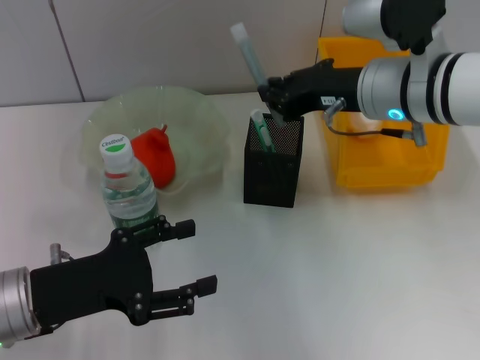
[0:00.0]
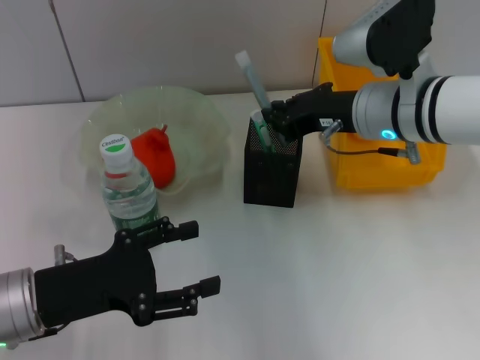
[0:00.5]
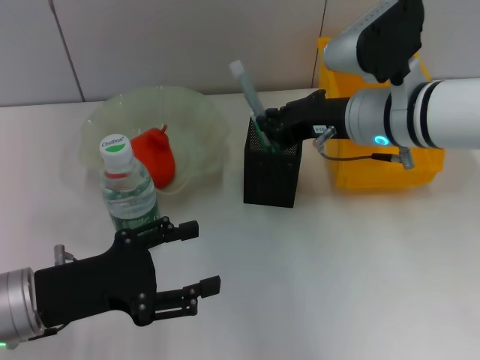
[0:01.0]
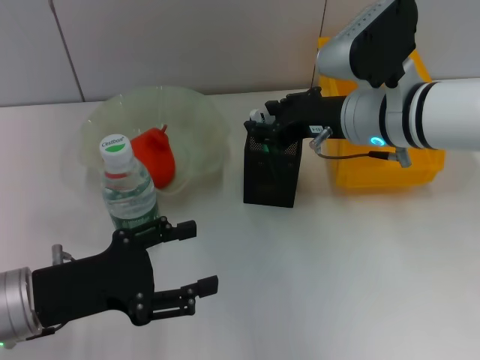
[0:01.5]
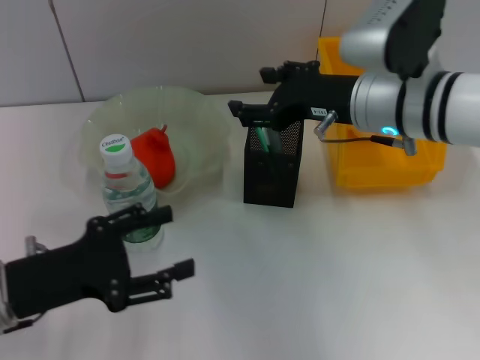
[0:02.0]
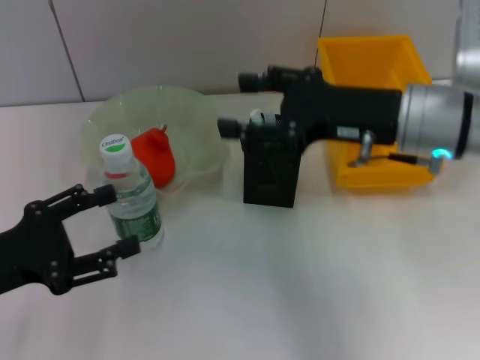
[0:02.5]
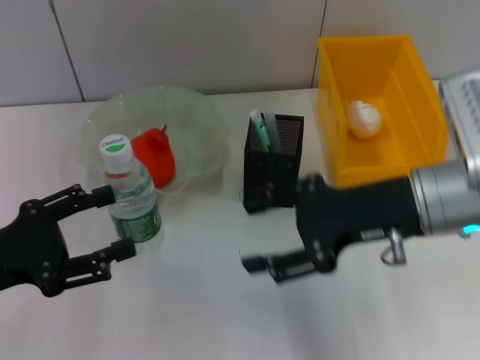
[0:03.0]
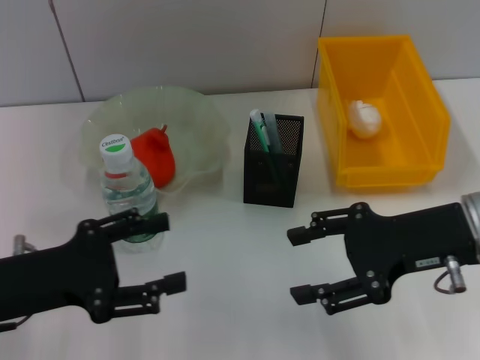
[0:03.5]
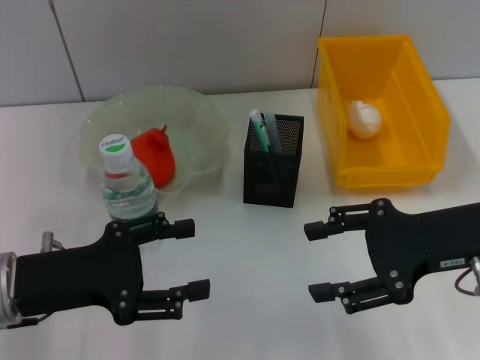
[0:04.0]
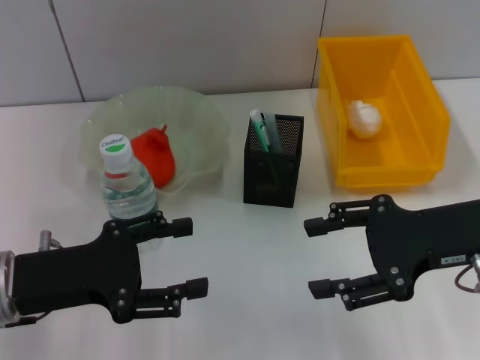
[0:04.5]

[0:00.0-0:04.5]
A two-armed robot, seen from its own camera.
0:00.0 to 0:02.0: The right gripper opens its fingers.
0:02.0 to 0:04.5: The right gripper shifts some 15 cm backward and to the right.

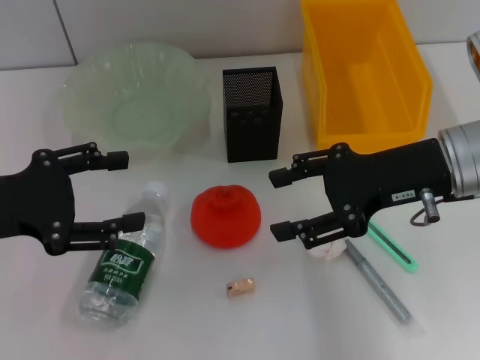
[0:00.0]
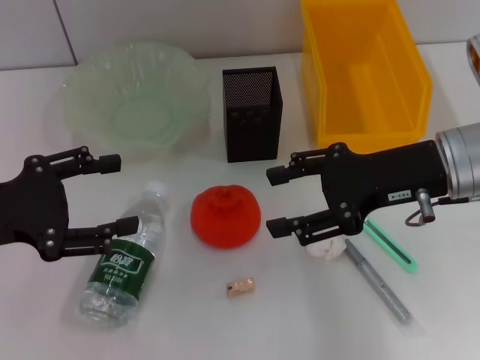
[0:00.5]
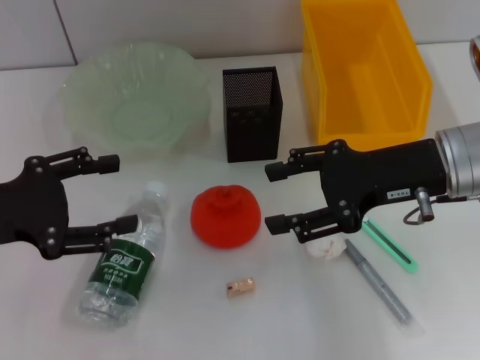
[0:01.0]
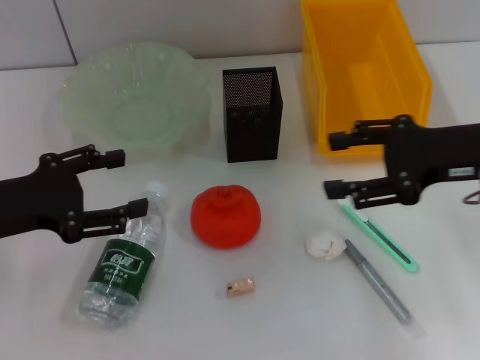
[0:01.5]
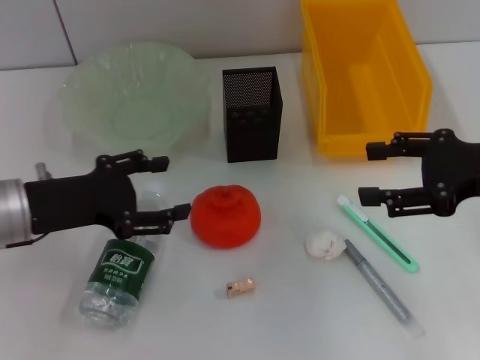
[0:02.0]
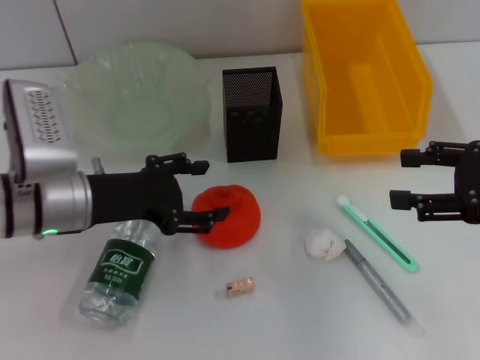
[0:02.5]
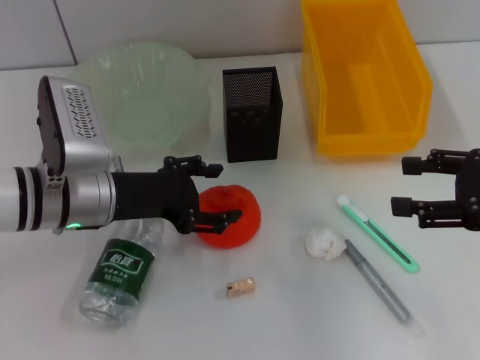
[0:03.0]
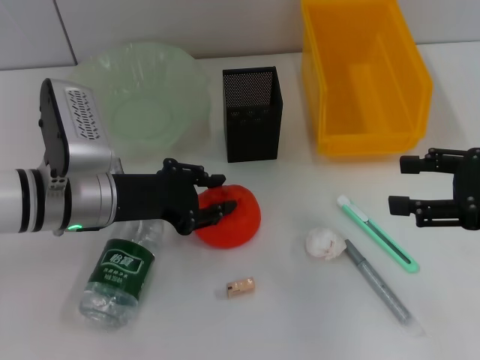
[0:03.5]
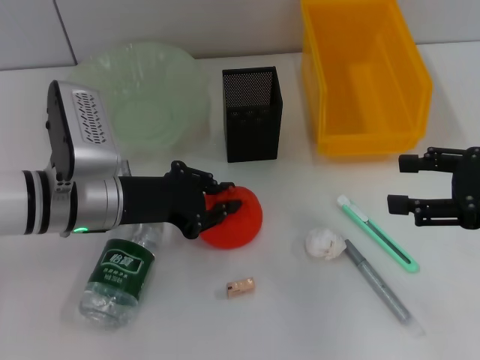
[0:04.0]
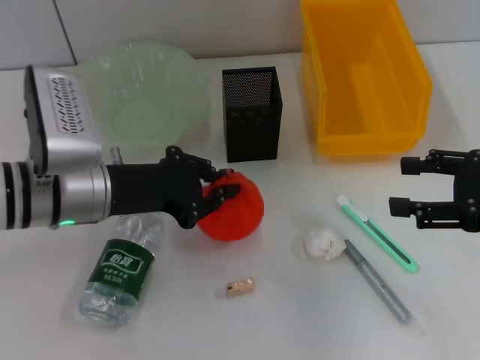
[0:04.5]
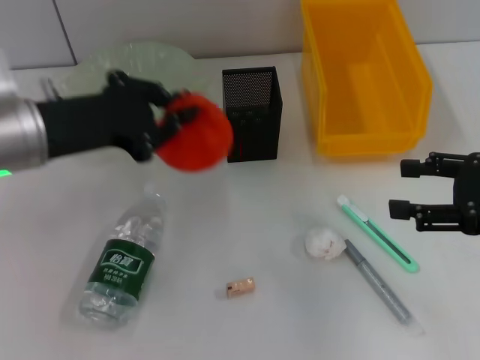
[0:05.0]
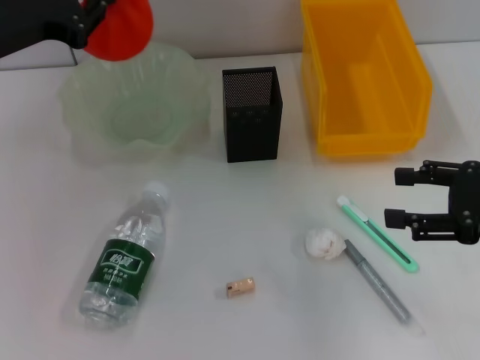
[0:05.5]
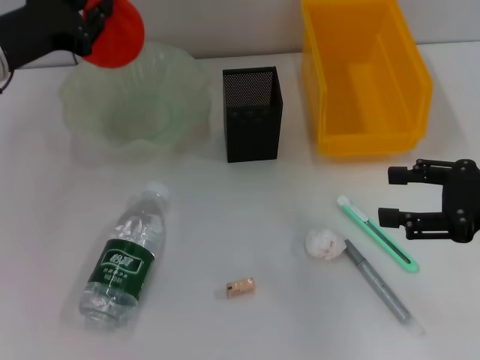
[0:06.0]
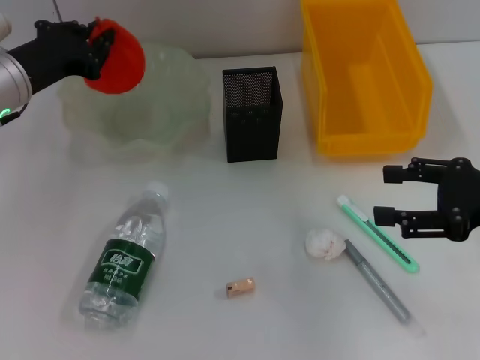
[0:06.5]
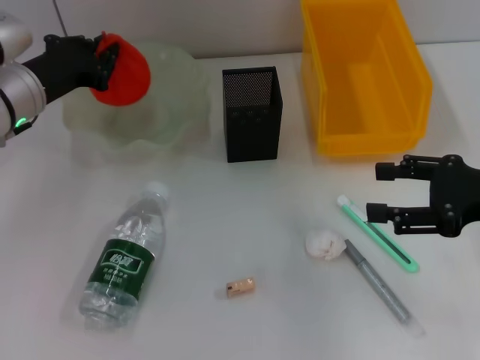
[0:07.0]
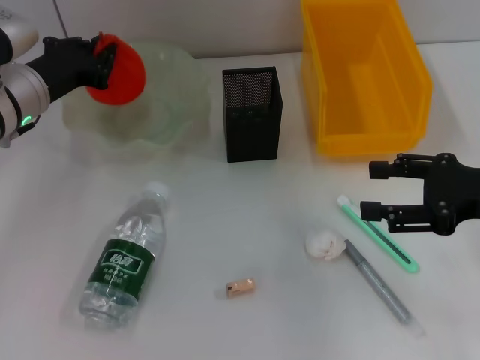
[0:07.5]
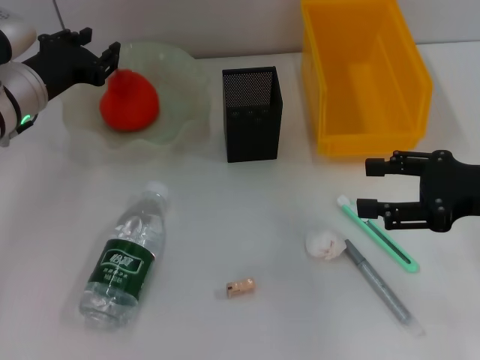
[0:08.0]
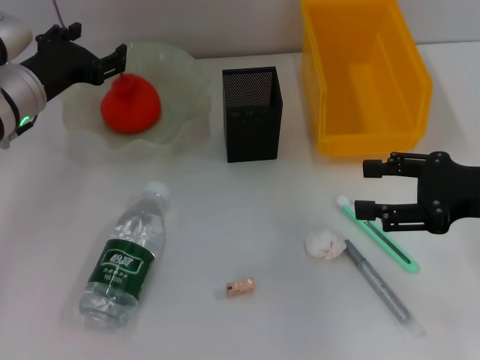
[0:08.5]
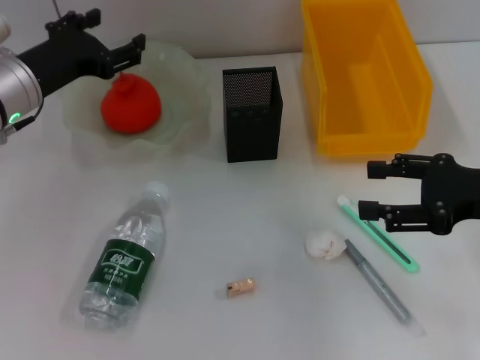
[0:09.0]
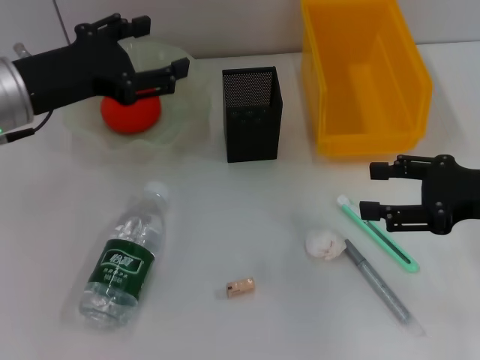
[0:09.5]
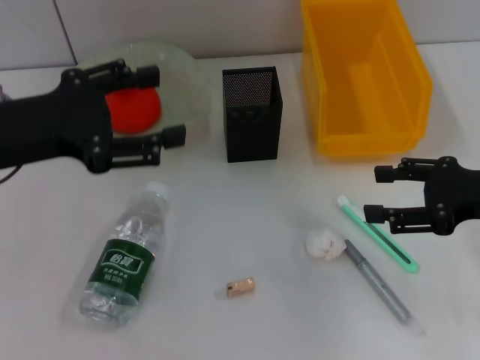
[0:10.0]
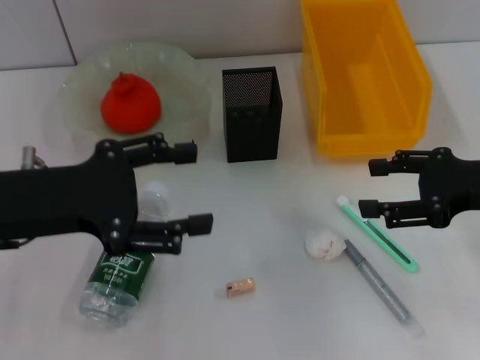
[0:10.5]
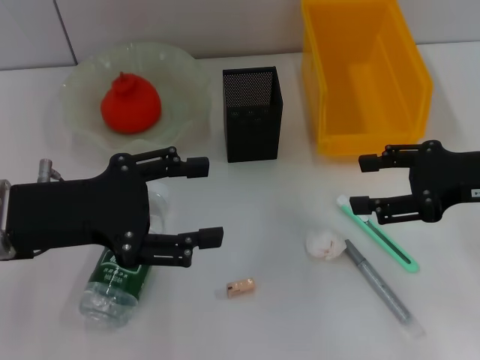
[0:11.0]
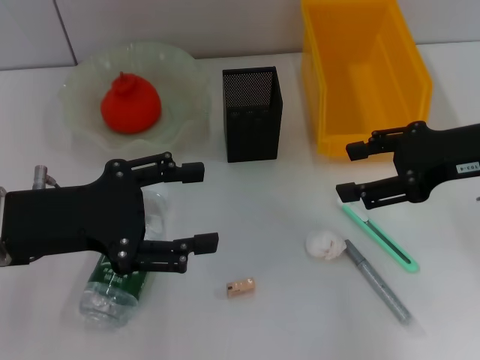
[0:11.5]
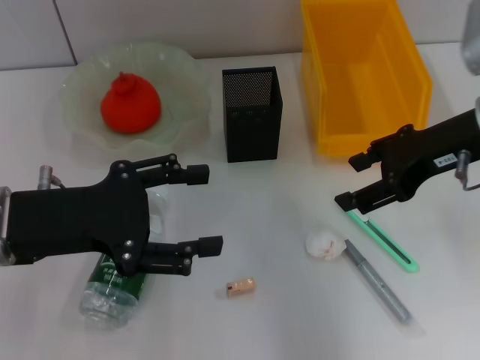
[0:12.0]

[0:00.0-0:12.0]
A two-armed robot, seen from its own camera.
Step, 0:00.0 to 0:04.0: Grab the orange with the left hand.
Step, 0:04.5 to 0:08.0: Place the orange into the fruit bowl with the left hand.
0:00.0 to 0:02.0: The right gripper is displaced to the right by about 10 cm. Meanwhile the left gripper travels downward by some 5 cm.
0:02.0 to 0:04.0: The left gripper shifts some 5 cm to the right, and closes.
0:04.0 to 0:06.0: The left gripper is displaced upward, to the left and forward by roughly 15 cm.
0:06.0 to 0:08.0: The left gripper goes about 5 cm downward.
0:08.0 to 0:10.0: The left gripper shifts roughly 15 cm backward and upward, and opens up.
0:10.0 to 0:12.0: The right gripper shifts approximately 10 cm upward, to the left and forward; the left gripper moves some 5 cm.

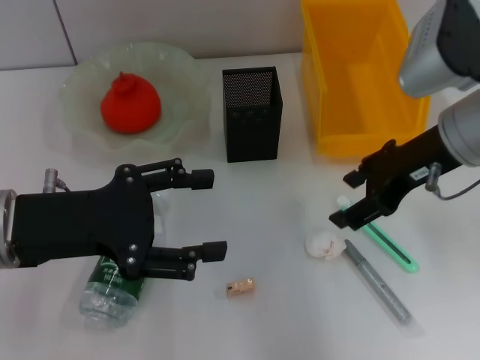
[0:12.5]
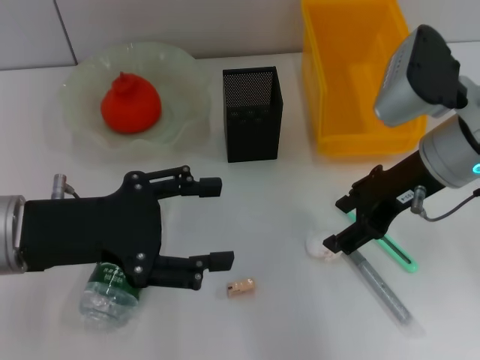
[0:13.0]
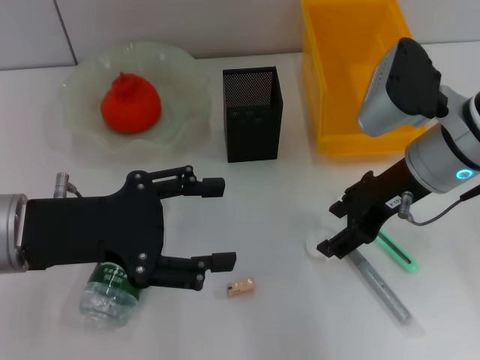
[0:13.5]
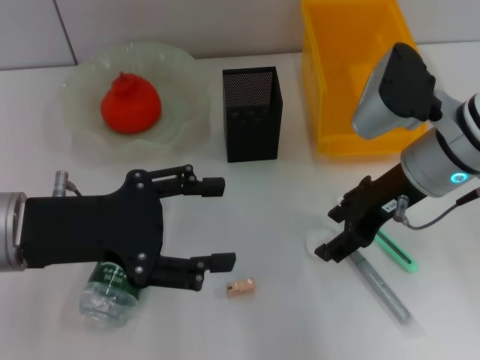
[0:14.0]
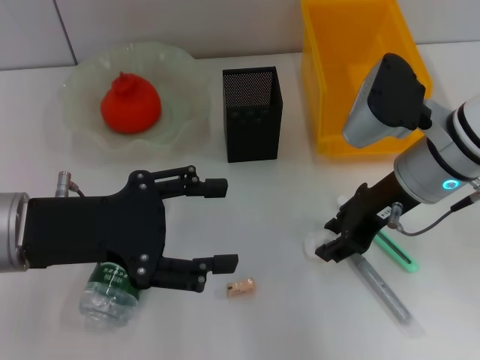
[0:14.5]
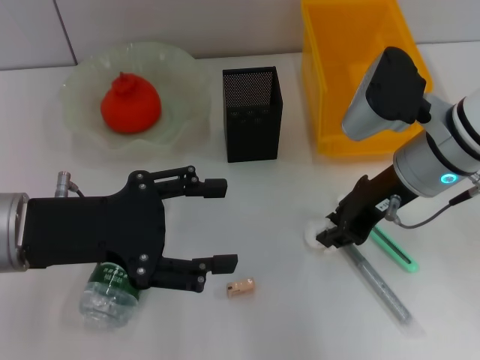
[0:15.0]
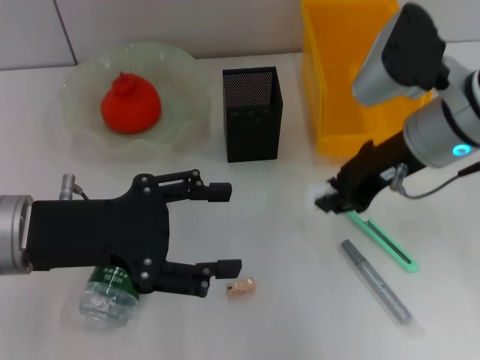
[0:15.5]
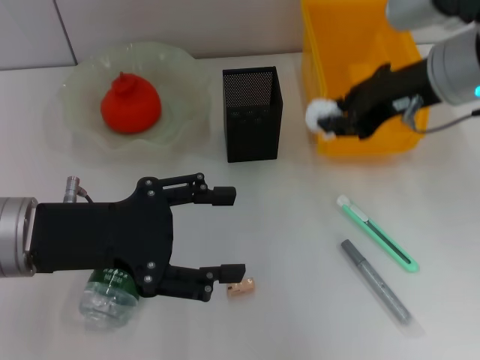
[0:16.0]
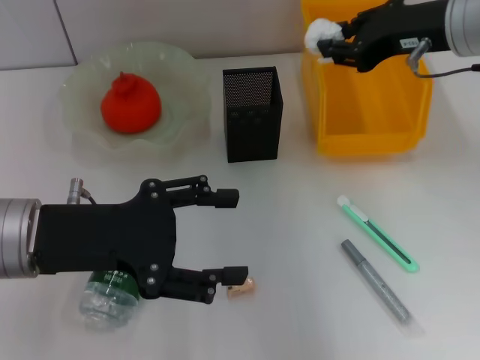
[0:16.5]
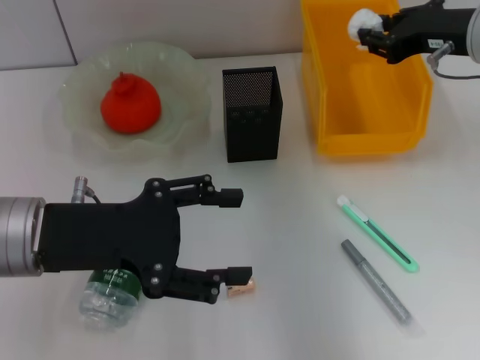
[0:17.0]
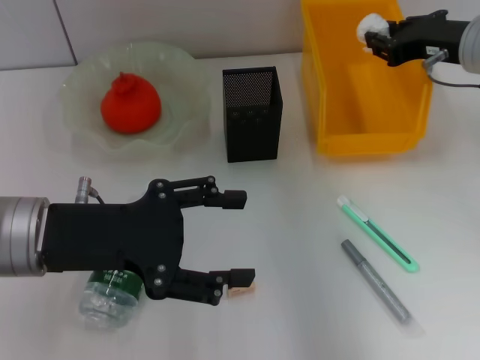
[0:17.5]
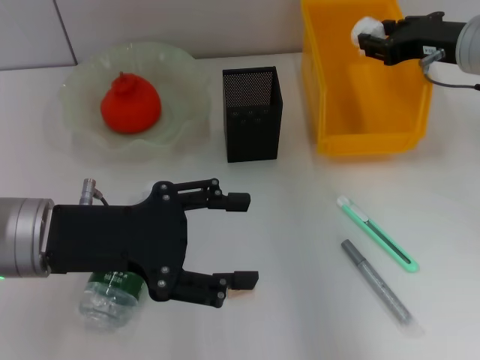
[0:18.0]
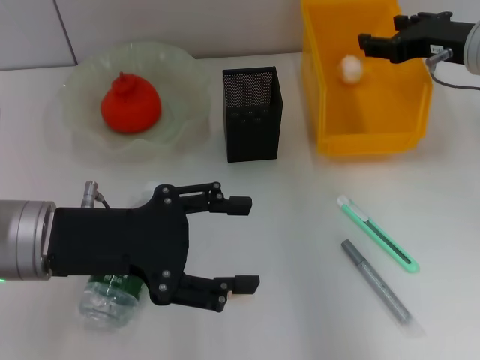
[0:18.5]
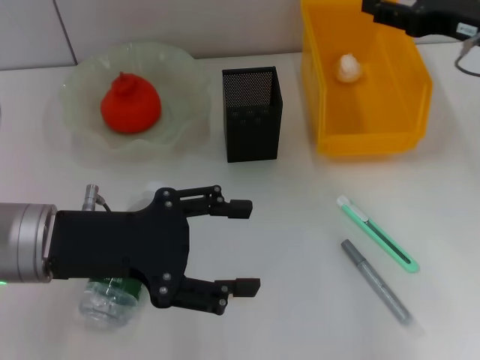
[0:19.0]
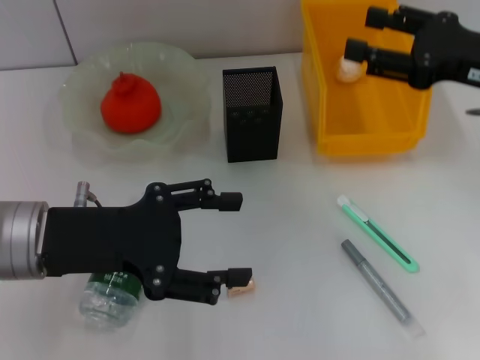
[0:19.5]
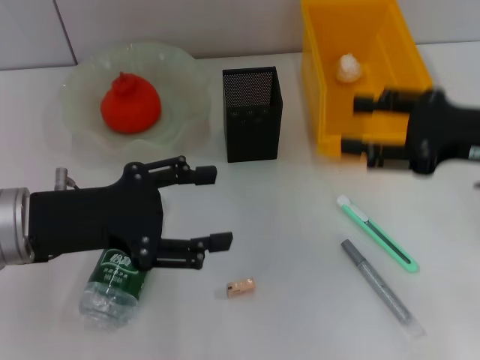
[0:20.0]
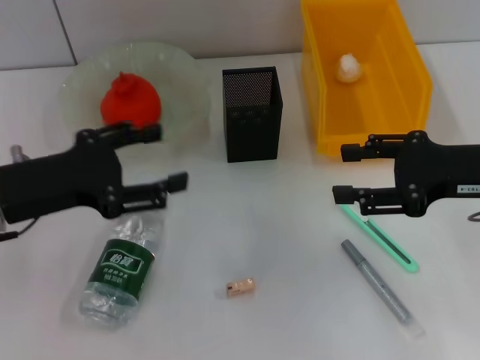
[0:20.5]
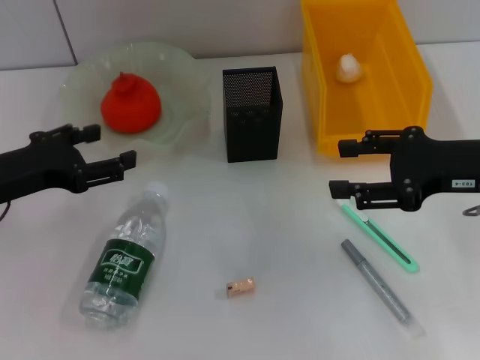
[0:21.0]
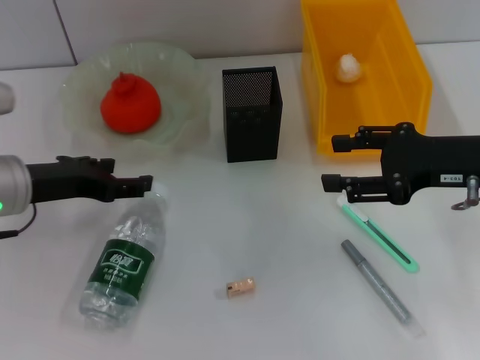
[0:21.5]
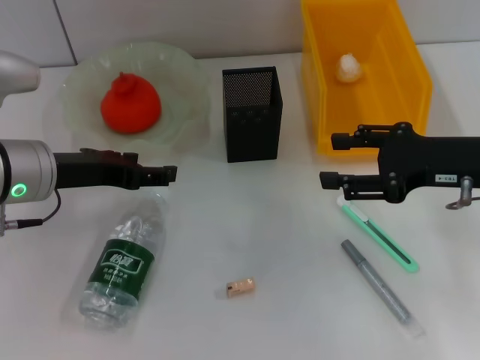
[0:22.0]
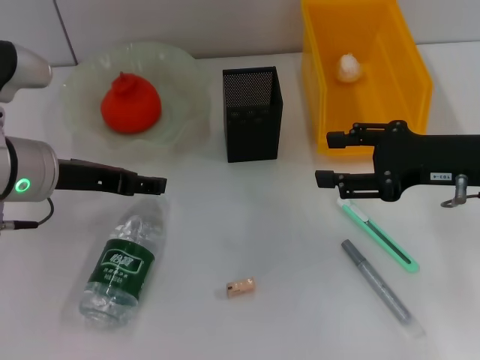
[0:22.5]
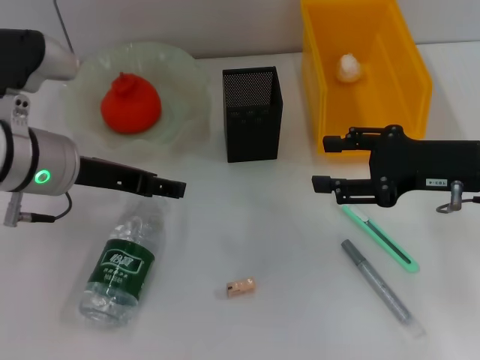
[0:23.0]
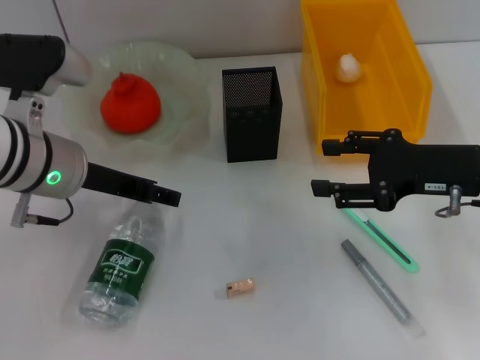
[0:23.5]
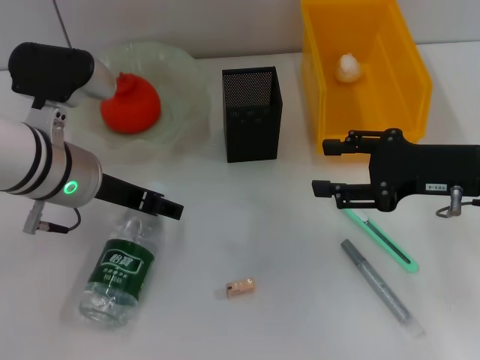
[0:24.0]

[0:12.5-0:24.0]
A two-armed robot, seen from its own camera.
Step, 0:12.5 to 0:14.5: Grab the paper ball with the right hand.
Step, 0:15.0 to 0:18.0: Place the paper ball into the trash can with the right hand.
0:12.5 to 0:14.5: The right gripper changes place by roughly 5 cm.
0:14.5 to 0:16.5: The right gripper travels upward by some 10 cm, and closes up.
0:16.5 to 0:18.5: The right gripper is displaced downward by about 5 cm, and opens.
0:18.5 to 0:20.0: The right gripper shifts approximately 10 cm backward.
0:20.0 to 0:22.0: The left gripper goes about 5 cm forward.
0:22.0 to 0:24.0: The left gripper changes place by approximately 5 cm.
